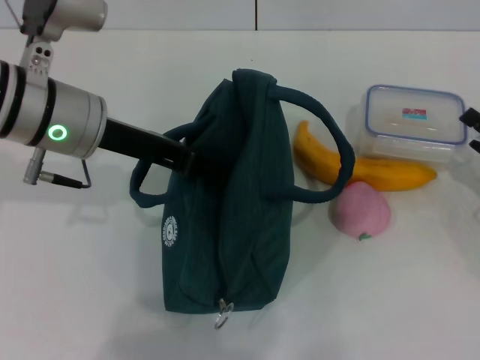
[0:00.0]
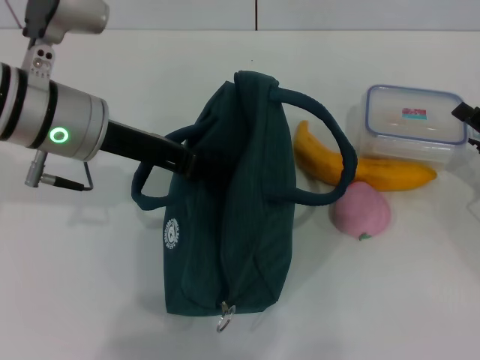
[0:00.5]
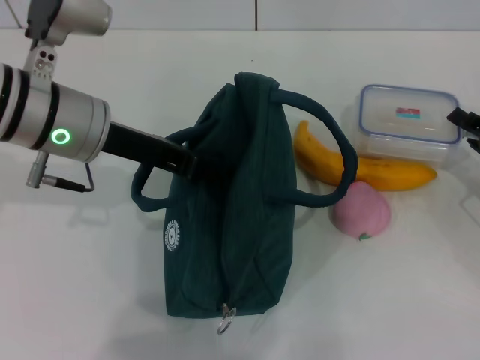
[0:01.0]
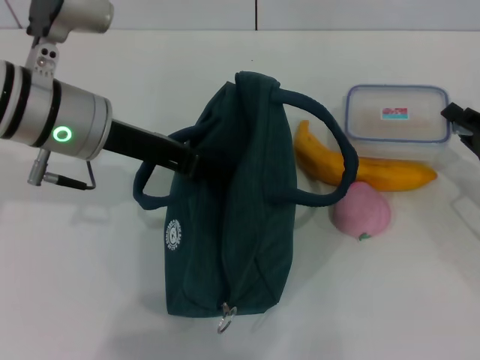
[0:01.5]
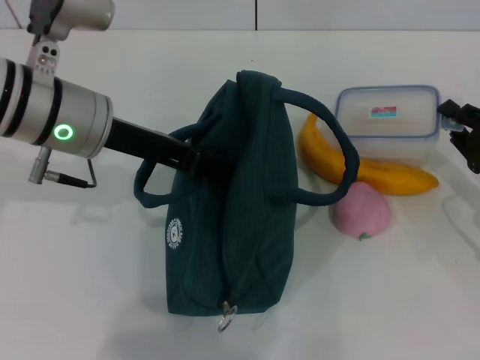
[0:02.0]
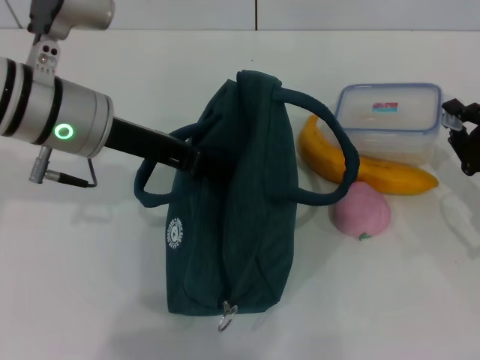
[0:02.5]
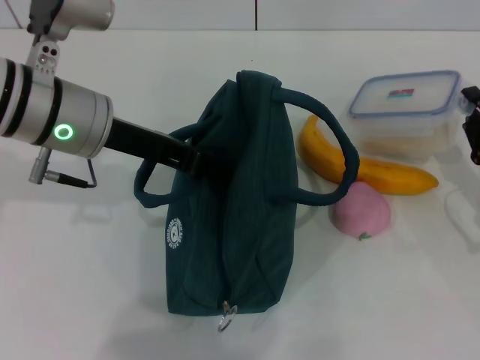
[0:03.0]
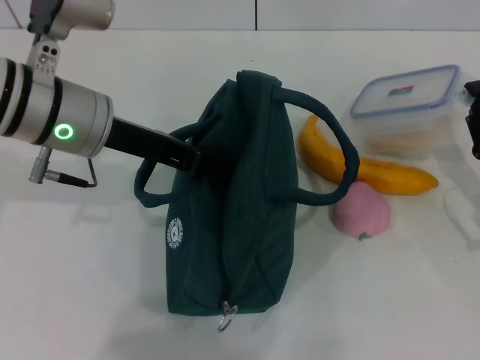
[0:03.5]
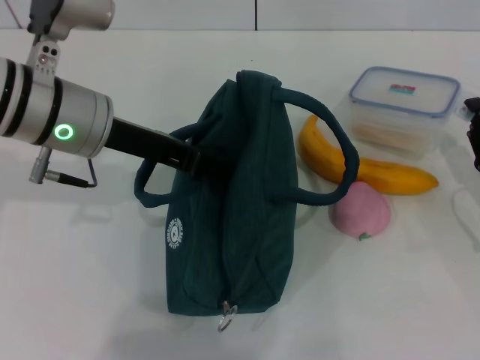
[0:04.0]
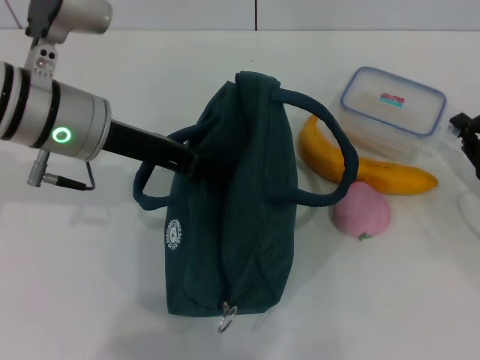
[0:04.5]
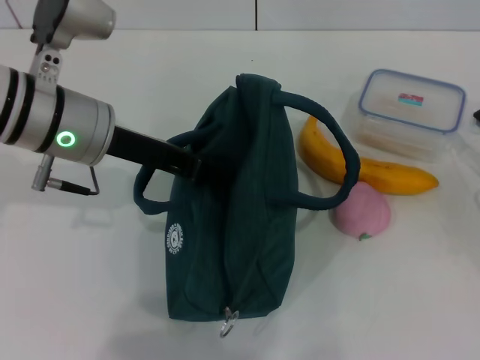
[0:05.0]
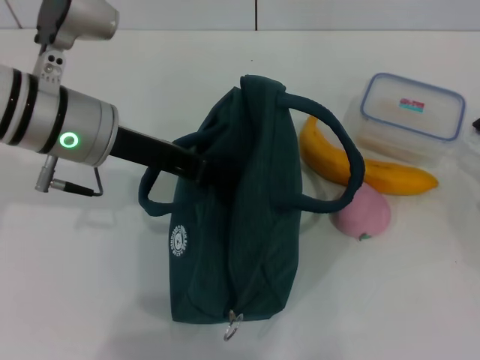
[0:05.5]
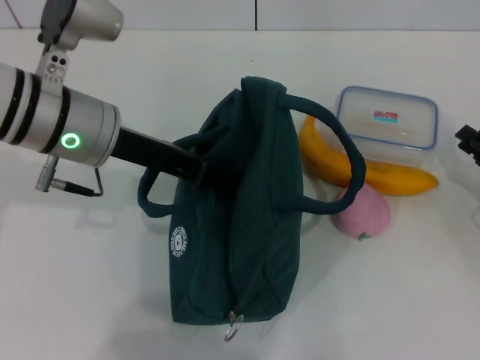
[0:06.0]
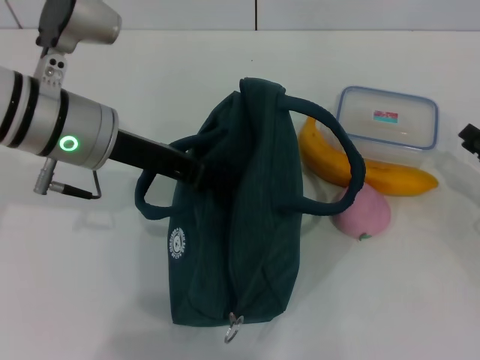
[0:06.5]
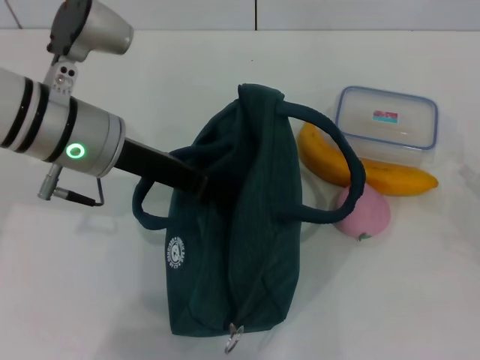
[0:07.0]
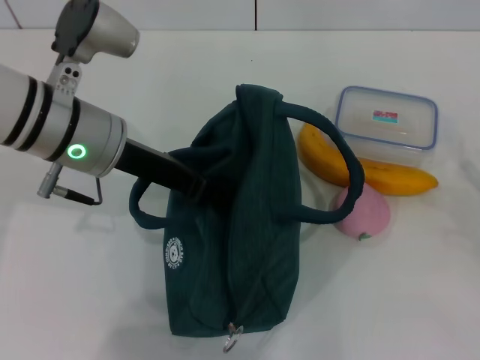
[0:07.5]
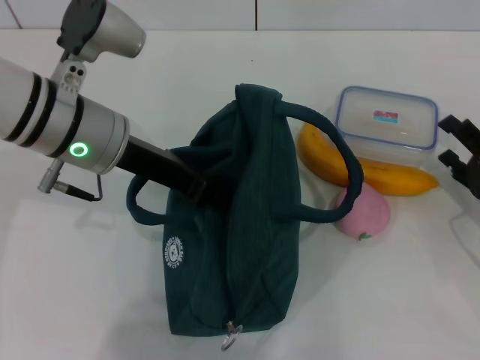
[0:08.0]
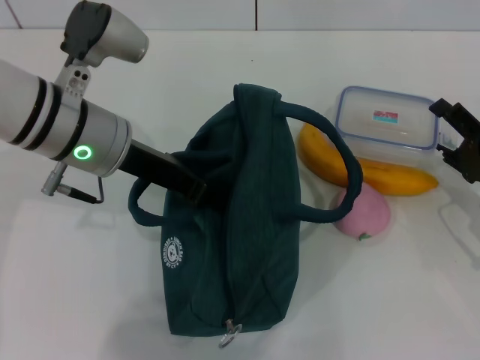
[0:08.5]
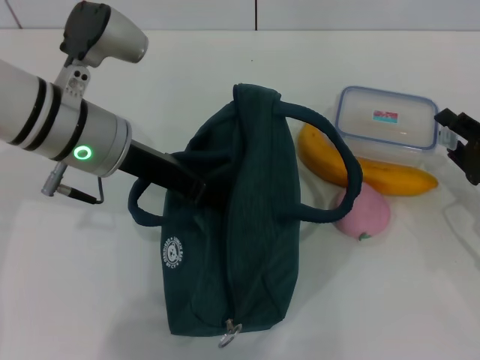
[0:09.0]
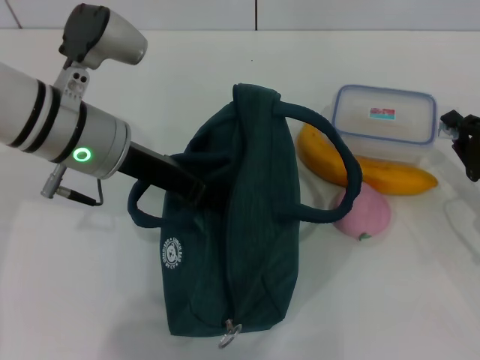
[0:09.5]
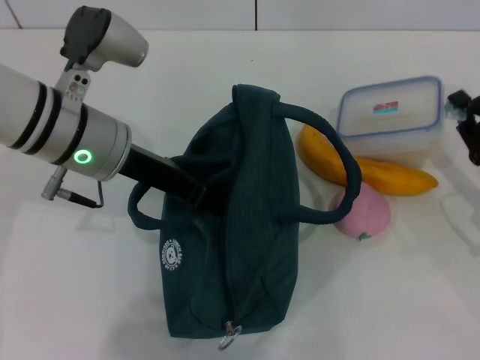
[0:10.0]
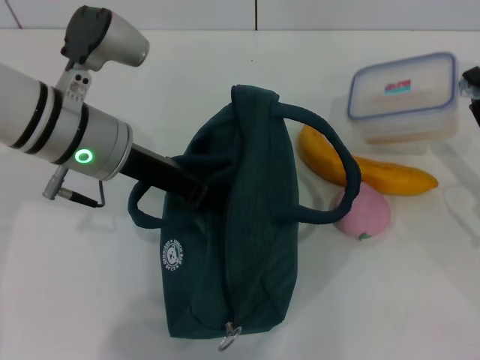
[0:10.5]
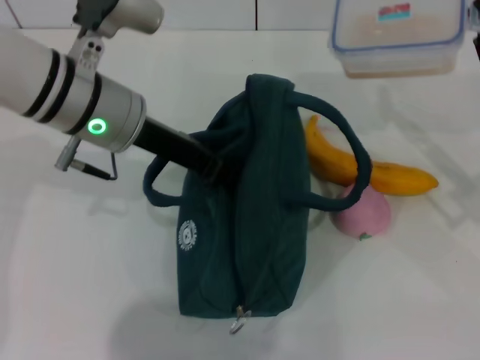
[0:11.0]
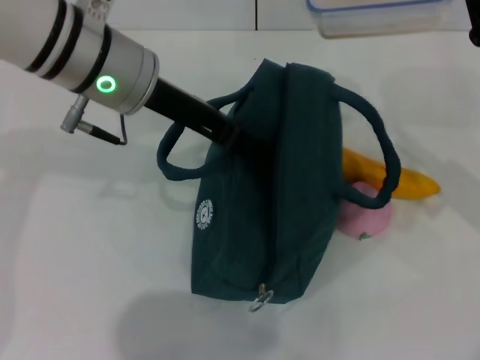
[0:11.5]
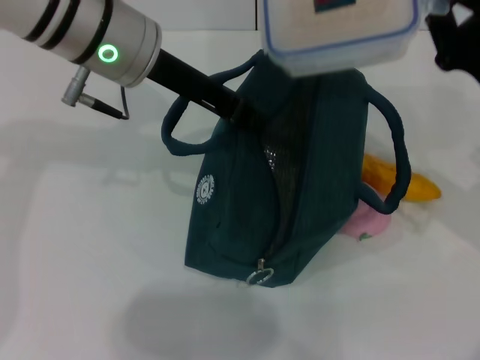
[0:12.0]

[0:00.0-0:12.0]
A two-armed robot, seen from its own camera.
Step, 0.0 to 9.5 s: Pick up the lunch box with your right hand.
0.0 to 2.0 s: The right gripper closes up.
6.0 to 8.0 s: The right gripper opens up.
8.0 to 10.0 s: The right gripper closes up.
10.0 to 12.0 s: The left gripper heads upward, covering about 10 cm, while the right gripper is displaced upward and to the left by about 10 cm.

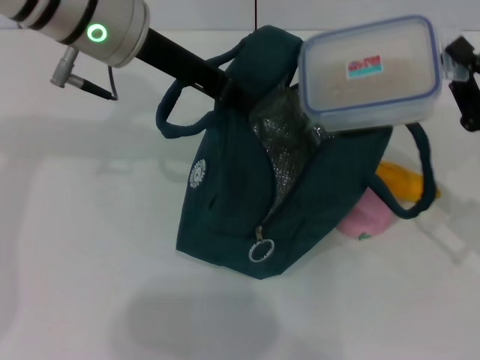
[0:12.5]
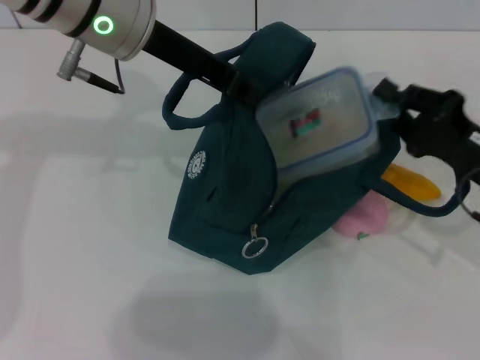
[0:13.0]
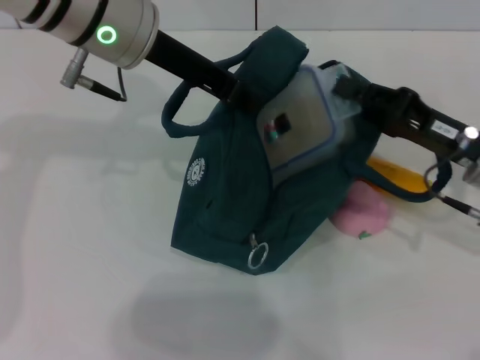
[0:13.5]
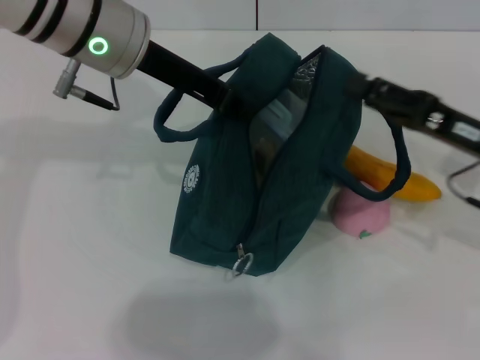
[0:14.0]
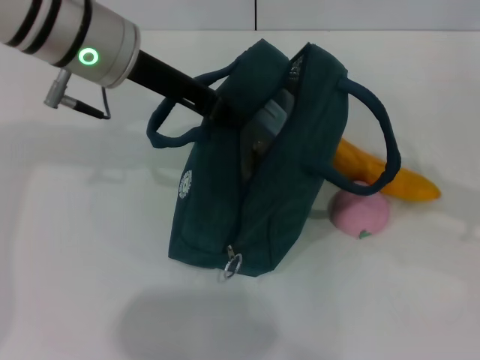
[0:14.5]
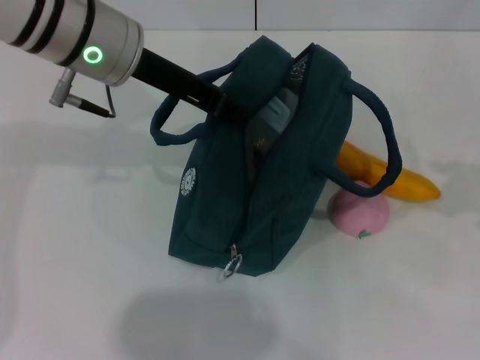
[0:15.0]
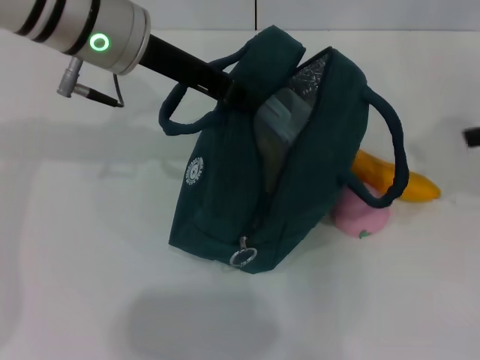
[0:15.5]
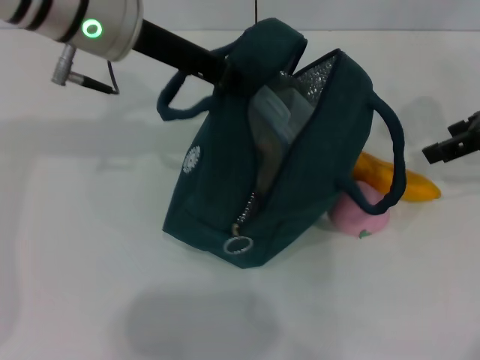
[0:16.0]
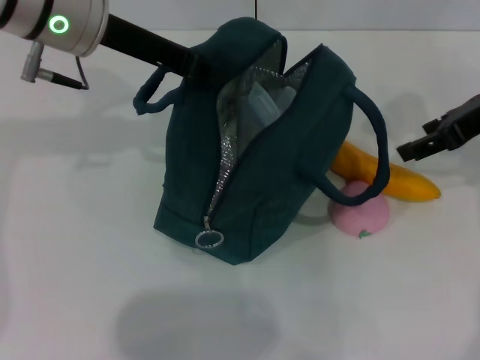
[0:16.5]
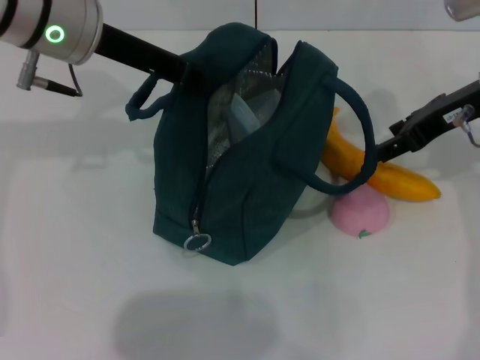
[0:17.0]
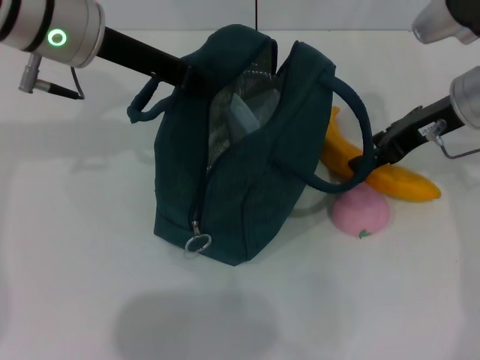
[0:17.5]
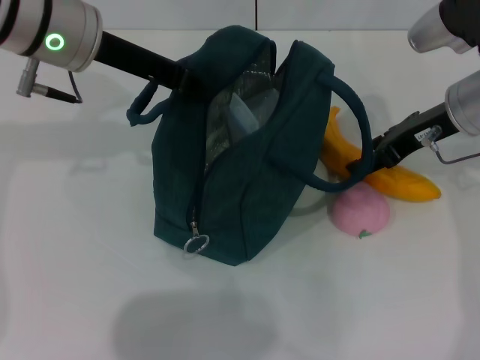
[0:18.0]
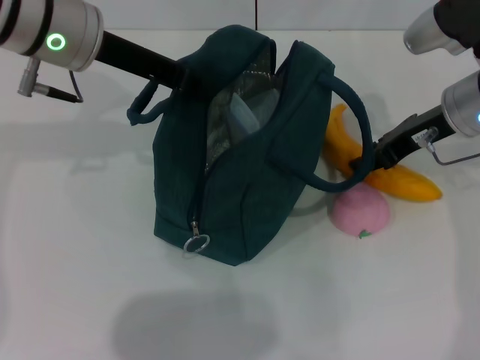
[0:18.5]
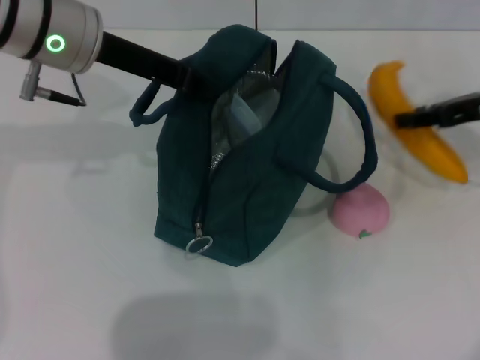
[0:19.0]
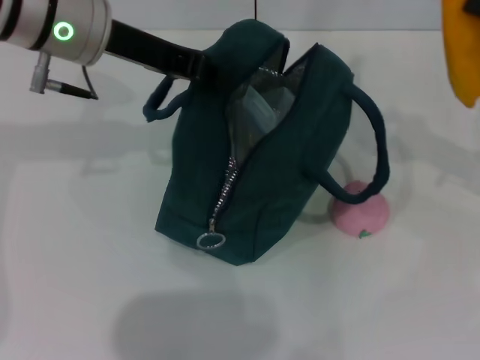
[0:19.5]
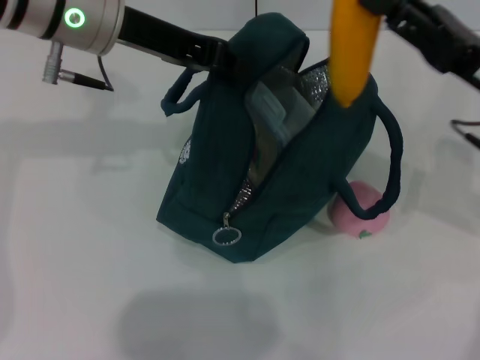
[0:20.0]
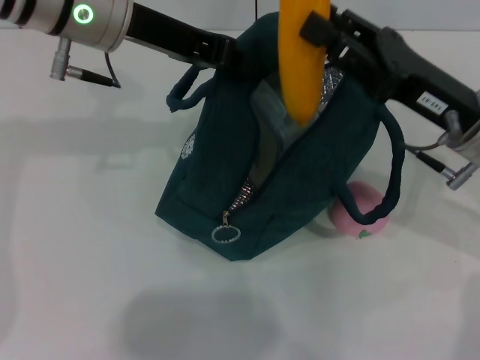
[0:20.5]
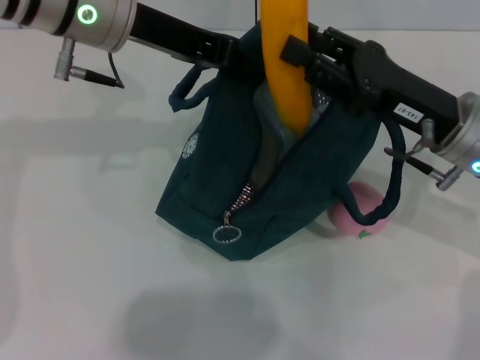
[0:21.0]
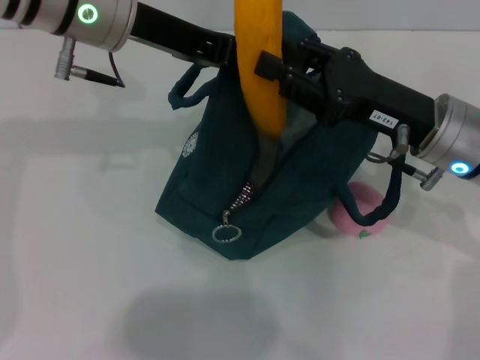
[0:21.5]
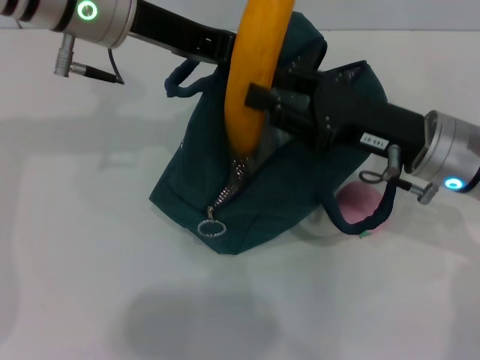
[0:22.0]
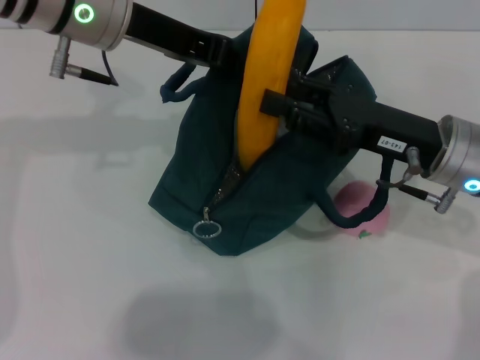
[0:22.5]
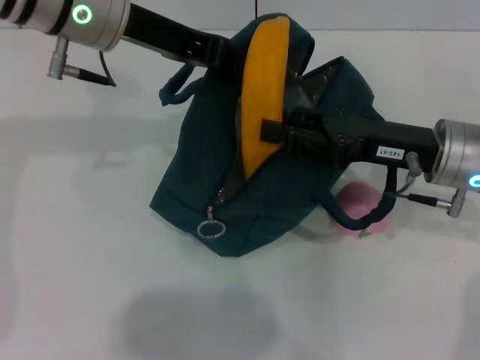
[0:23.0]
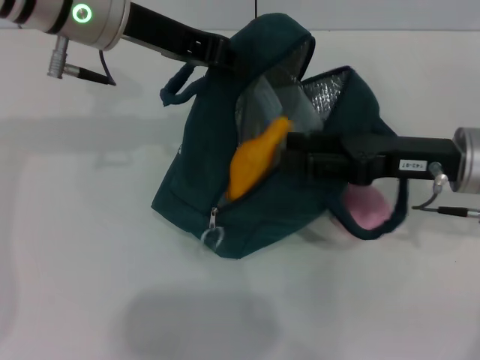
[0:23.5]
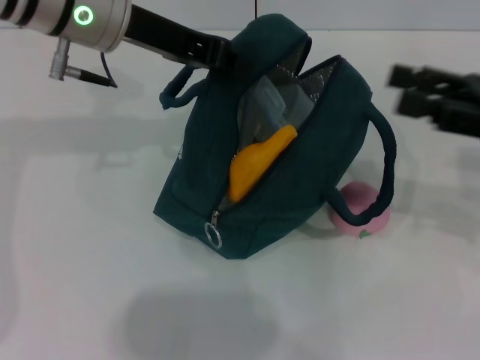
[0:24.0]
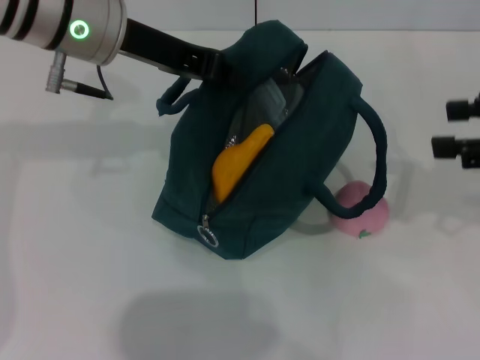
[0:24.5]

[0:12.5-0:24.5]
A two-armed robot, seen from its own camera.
Step, 14.5 to 18.5 s: Take the banana with your right hand.
Step, 19.0 to 23.5 s: Put the banana into the lunch bag with your right hand.
12.5 to 14.5 s: The right gripper shifts about 10 cm upward and to the right, and opens.
14.5 to 16.5 s: The right gripper goes approximately 15 cm forward and to the left.
16.5 to 18.5 s: The right gripper shifts some 10 cm downward and to the left.
18.5 to 20.5 s: The right gripper is displaced backward by some 10 cm, and goes to the right and returns, roughly 15 cm each way.
20.5 to 22.5 s: The grippers stay close to where they were, moving slightly.
22.5 to 24.5 s: The right gripper heads to the right and upward, covering roughly 15 cm.

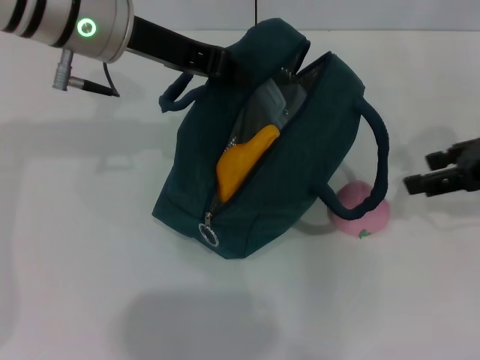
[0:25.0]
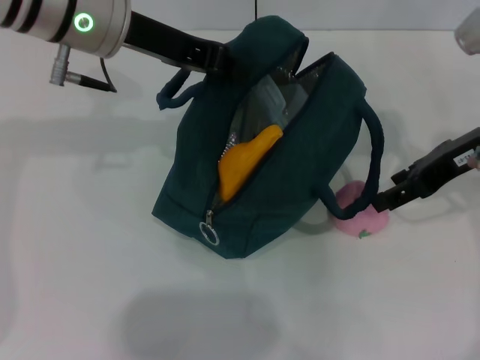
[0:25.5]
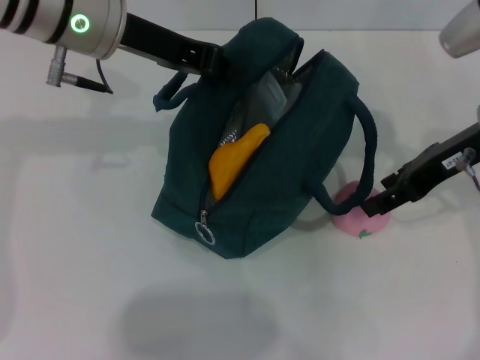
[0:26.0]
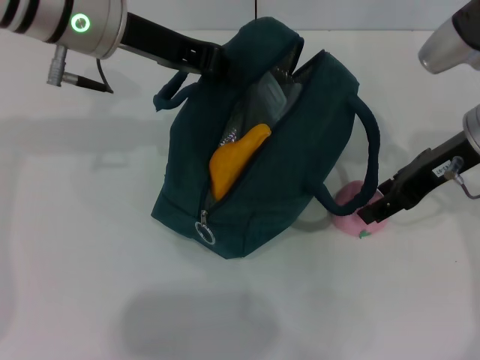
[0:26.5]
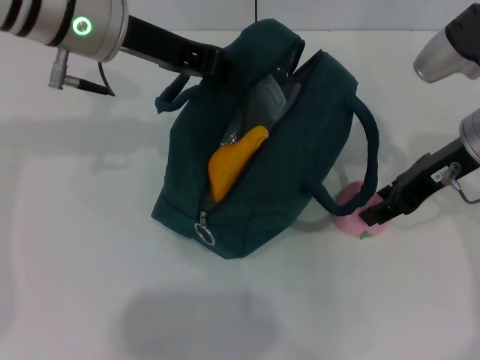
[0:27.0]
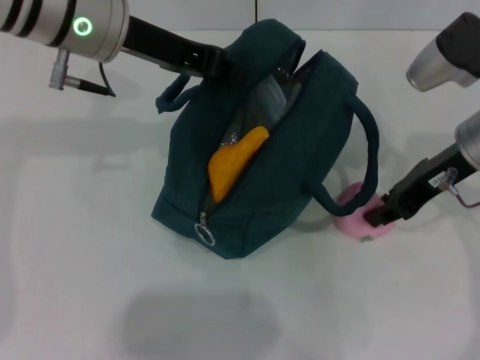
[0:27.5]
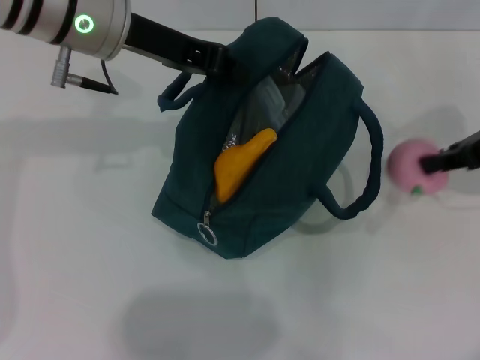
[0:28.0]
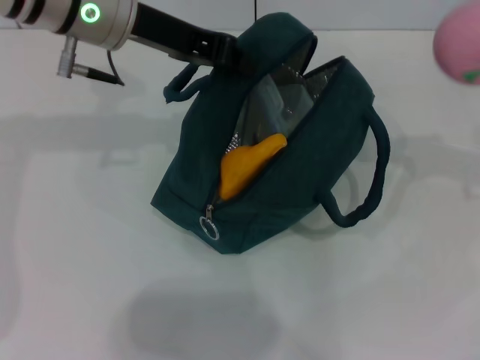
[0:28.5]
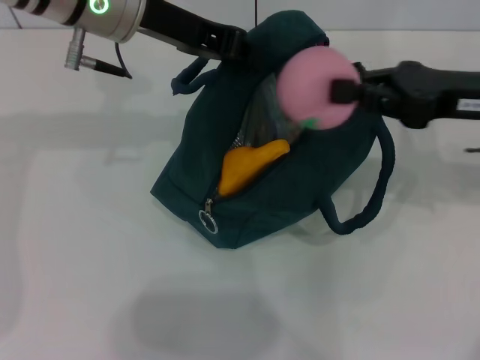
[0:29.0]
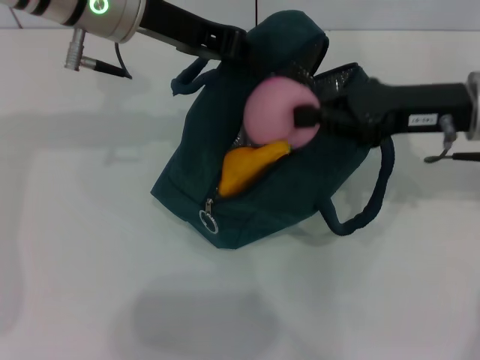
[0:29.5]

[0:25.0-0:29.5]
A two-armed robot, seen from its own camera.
Step, 25.0 to 27.0 s: Grab the peach with your right hand.
25.0 to 27.0 s: The right gripper shifts about 10 cm to the left.
27.0 to 29.5 s: The right gripper travels to the right and back again, some 15 cm each way, and closes its fingers.
